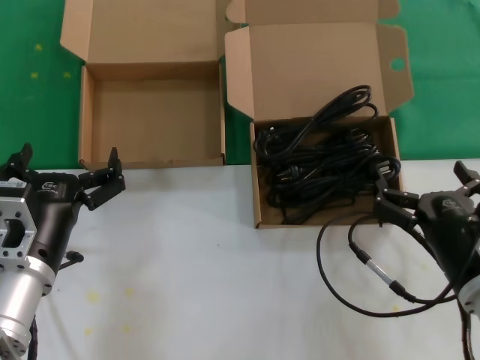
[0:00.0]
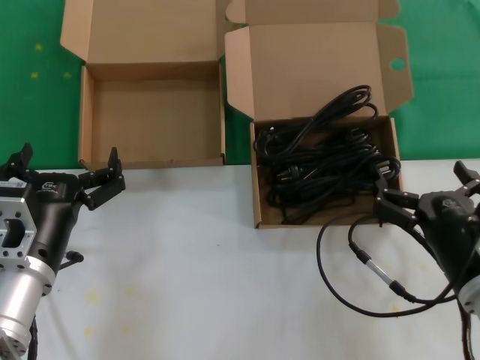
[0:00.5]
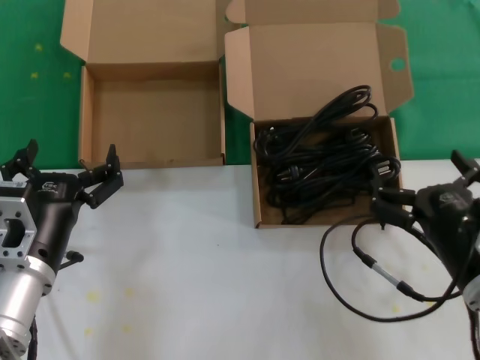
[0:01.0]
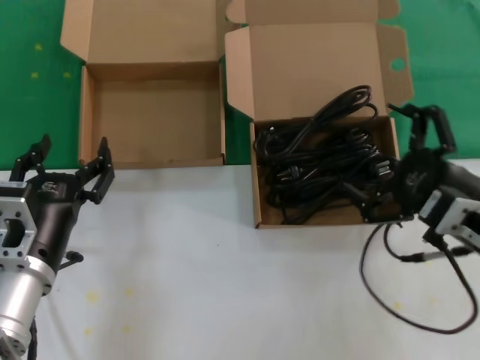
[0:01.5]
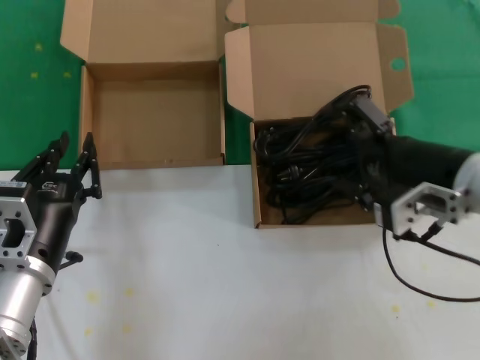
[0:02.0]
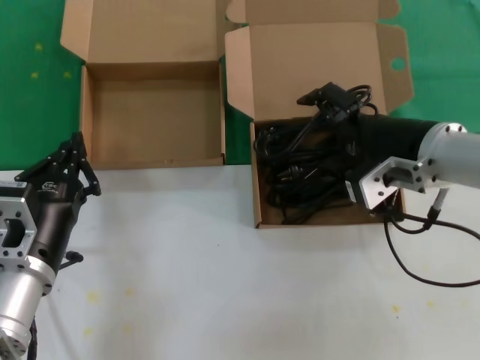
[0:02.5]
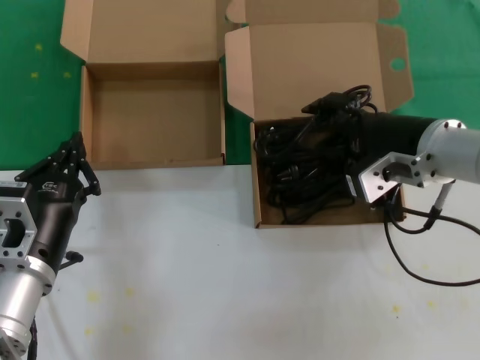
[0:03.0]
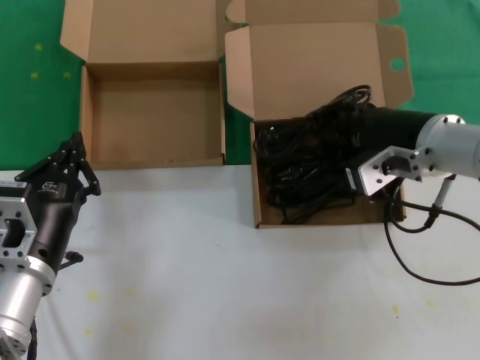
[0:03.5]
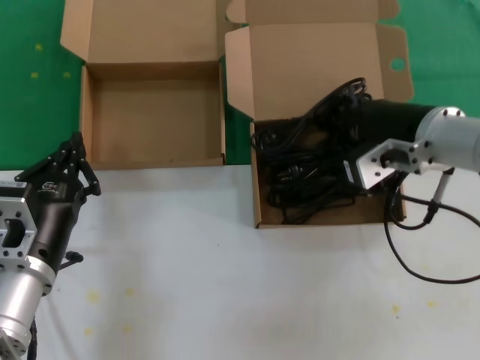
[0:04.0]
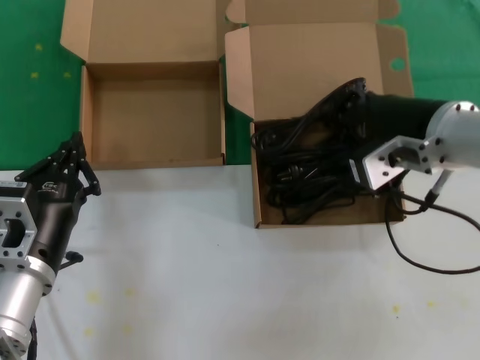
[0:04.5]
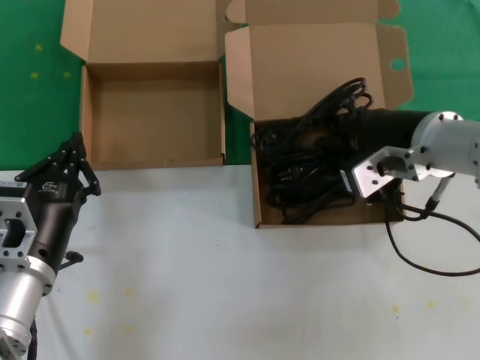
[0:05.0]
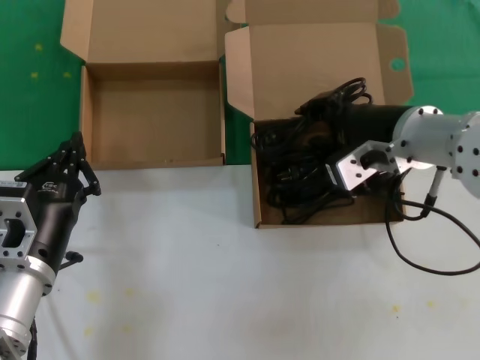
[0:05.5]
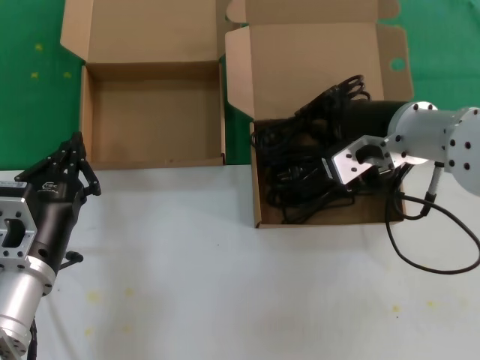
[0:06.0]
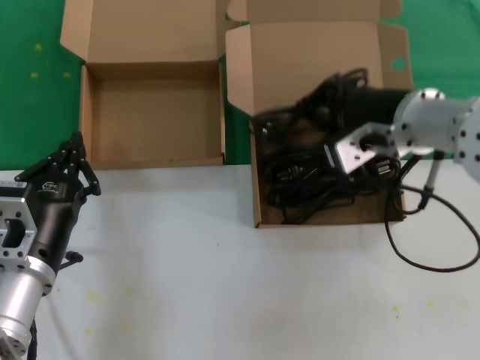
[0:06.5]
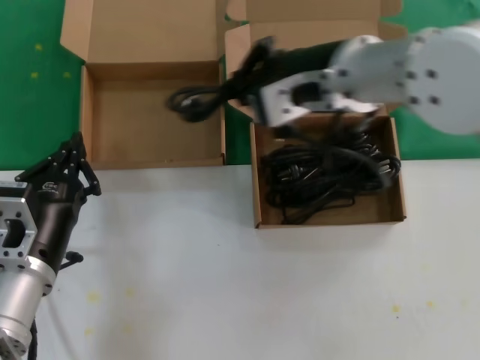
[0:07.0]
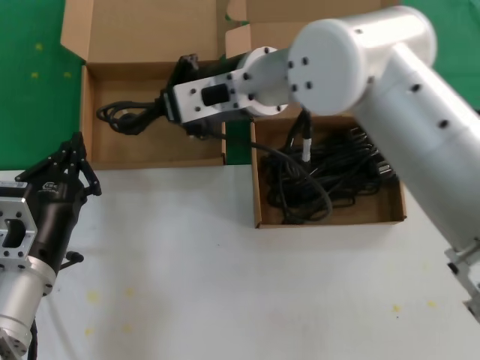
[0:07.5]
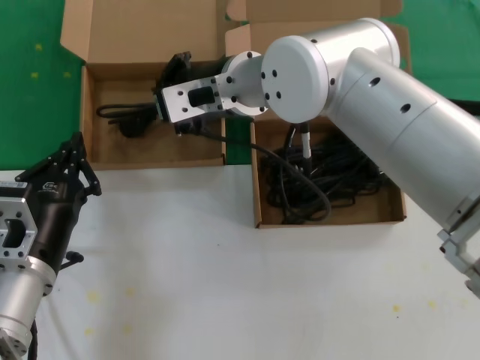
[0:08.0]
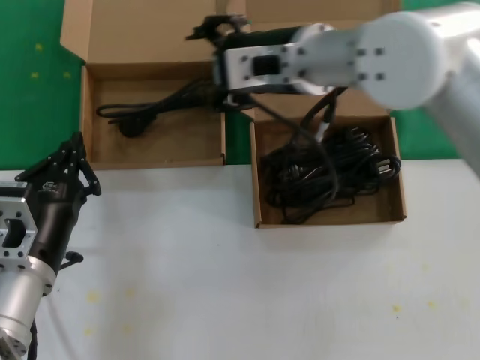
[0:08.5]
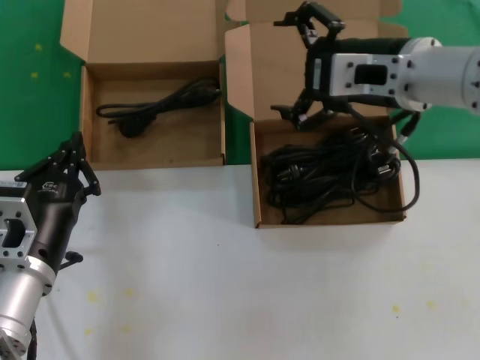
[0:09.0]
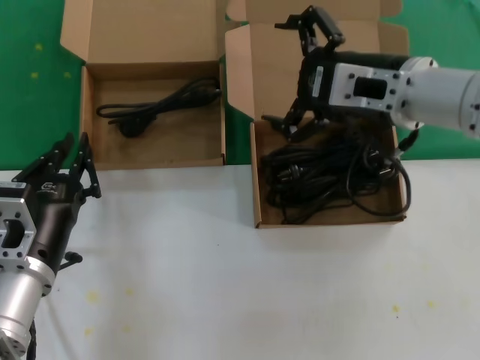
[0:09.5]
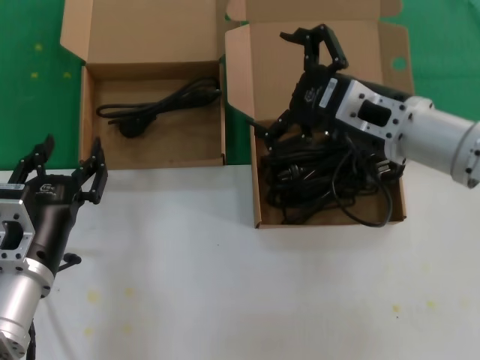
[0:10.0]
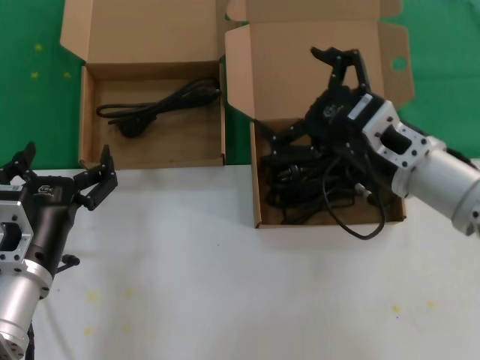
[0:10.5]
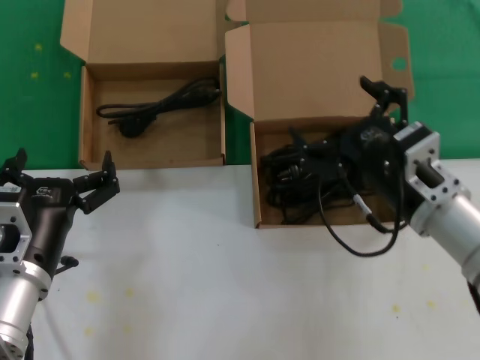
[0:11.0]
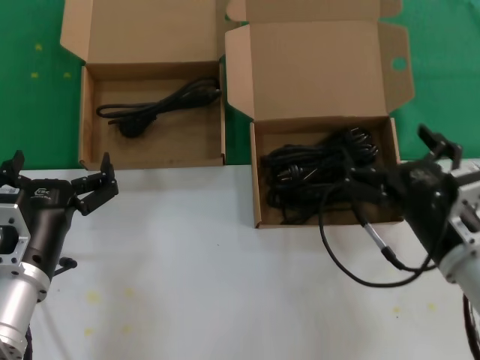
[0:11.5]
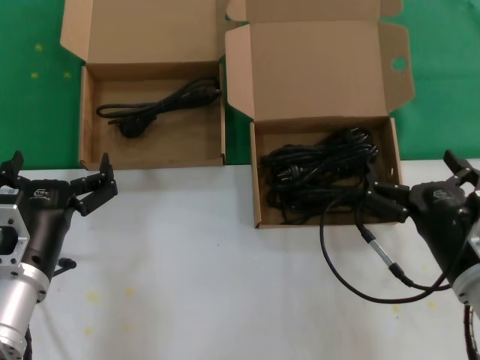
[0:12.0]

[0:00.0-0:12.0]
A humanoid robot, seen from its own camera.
Task of the whole recording: take the parts from the box containing them and put them into an empty box.
Step, 0:00.0 to 0:06.0: Grasp the data cable.
Step, 0:06.5 to 0:08.0: Place the data cable in the another box.
0:00.0 to 0:02.0: The right hand shifts about 15 cm upward and forward.
0:02.0 to 0:04.0: The right hand shifts roughly 5 cm forward.
0:04.0 to 0:06.0: The hands move only a little.
0:06.0 to 0:08.0: The right hand goes some 20 cm to the left.
0:08.0 to 0:10.0: The right hand is displaced to the right and backward by approximately 20 cm.
0:10.0 to 0:12.0: The right hand travels downward and backward by approximately 20 cm.

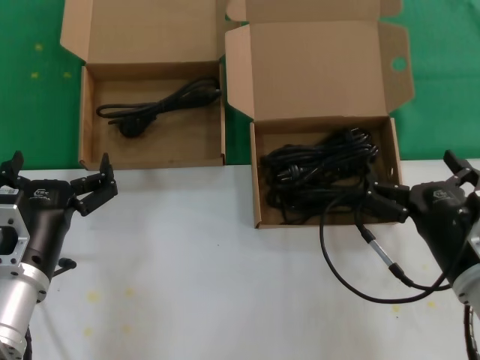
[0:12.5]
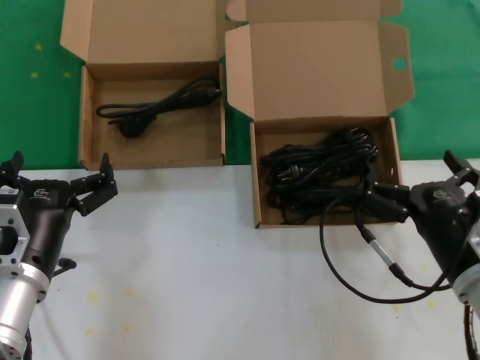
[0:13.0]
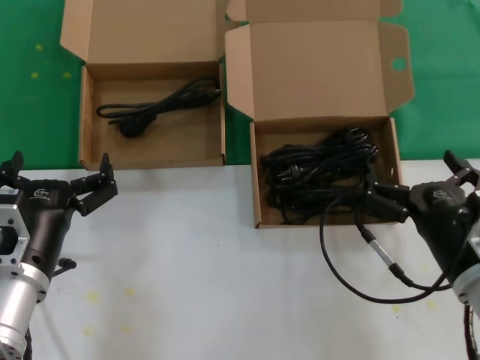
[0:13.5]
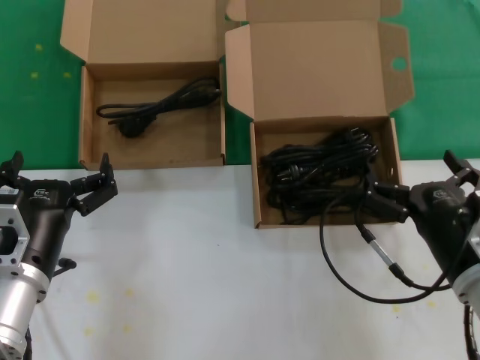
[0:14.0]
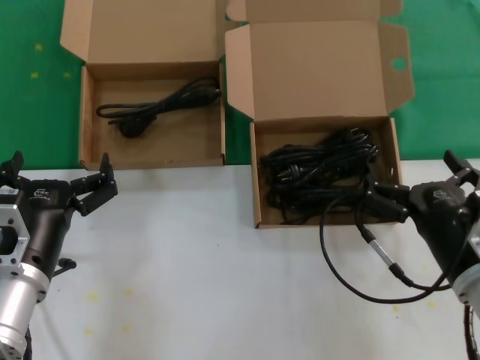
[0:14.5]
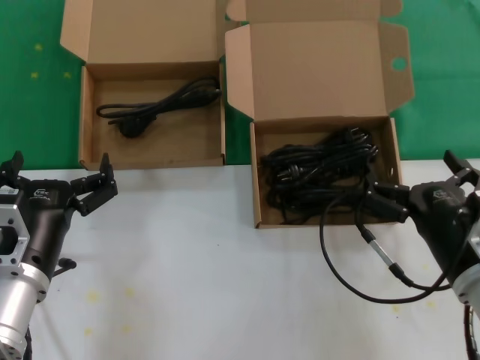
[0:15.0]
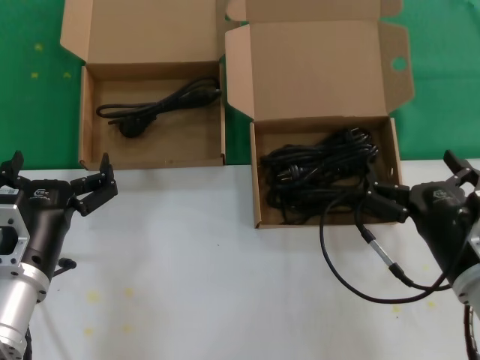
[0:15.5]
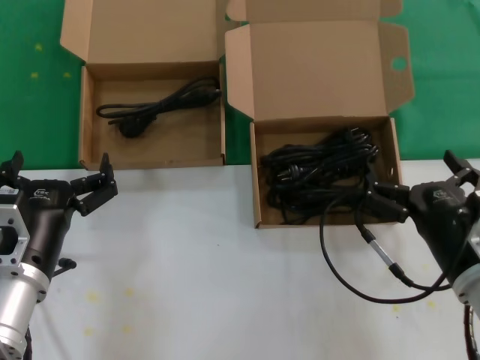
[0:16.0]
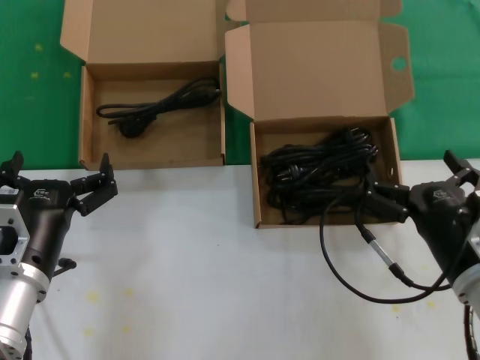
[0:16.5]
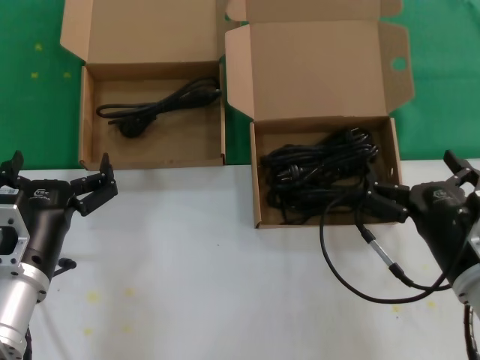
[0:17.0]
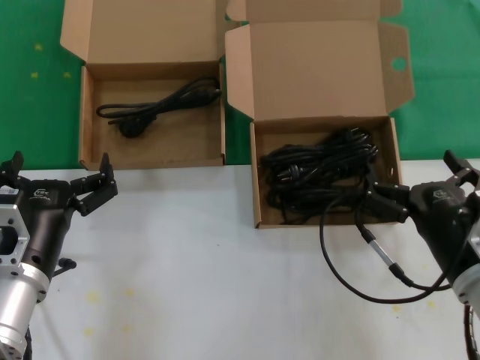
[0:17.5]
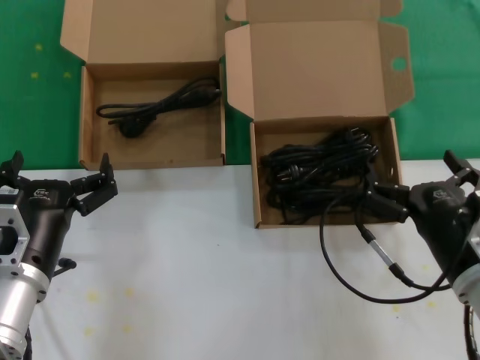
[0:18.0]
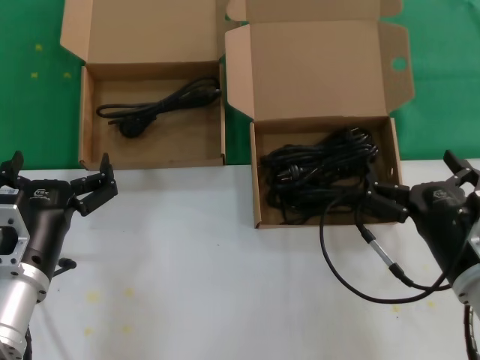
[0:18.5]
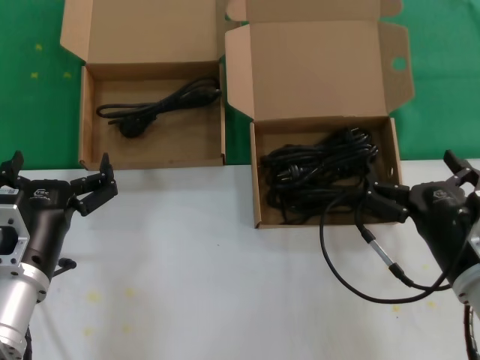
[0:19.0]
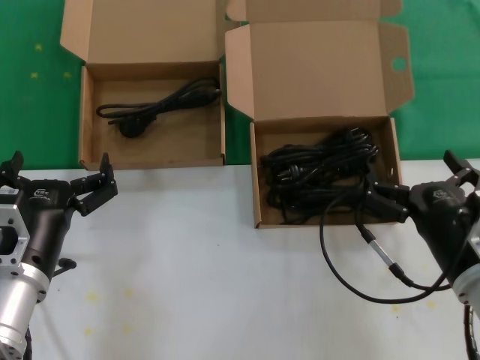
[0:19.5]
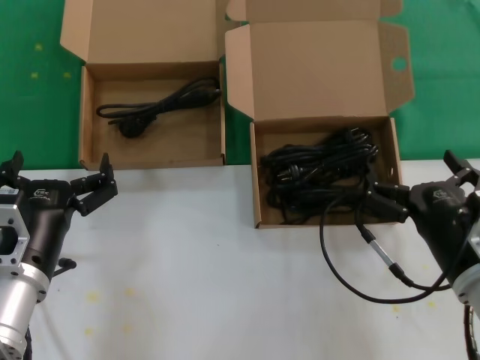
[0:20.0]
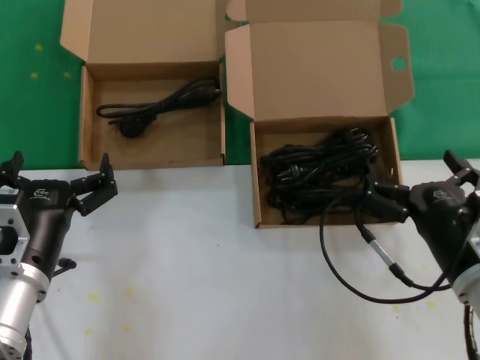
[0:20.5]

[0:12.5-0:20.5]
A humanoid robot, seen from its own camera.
Task of the whole recording: take the parts from the box containing them and put them into an empty box.
0:12.5 to 0:20.5: Both hands stay put.

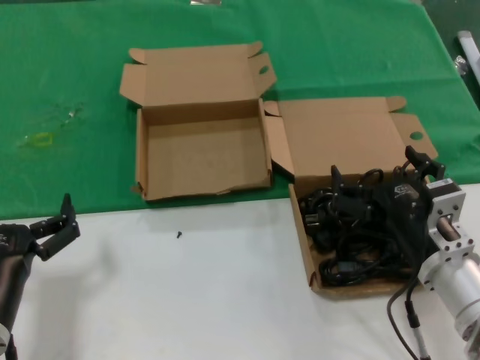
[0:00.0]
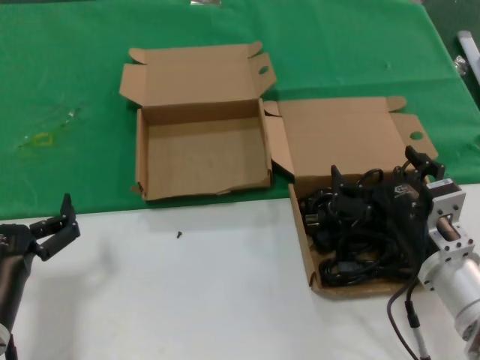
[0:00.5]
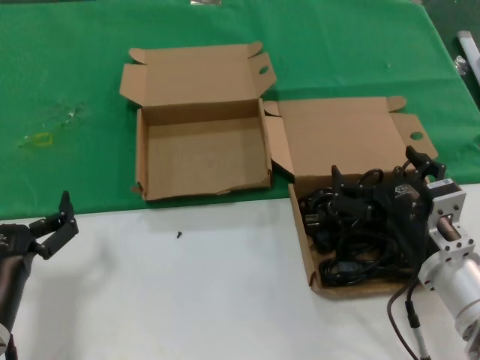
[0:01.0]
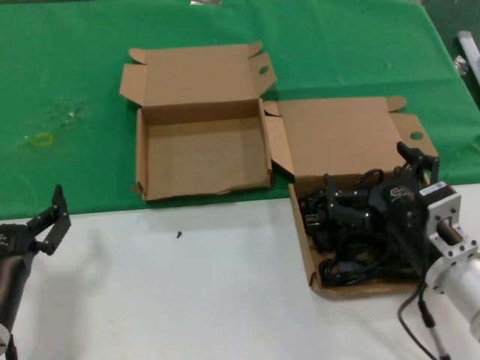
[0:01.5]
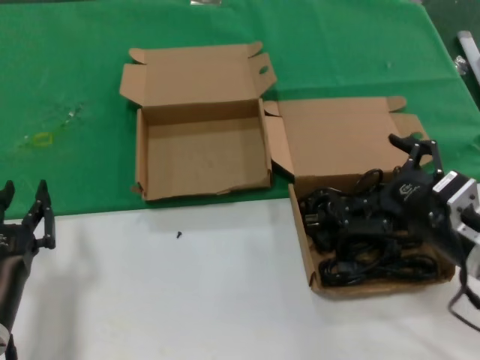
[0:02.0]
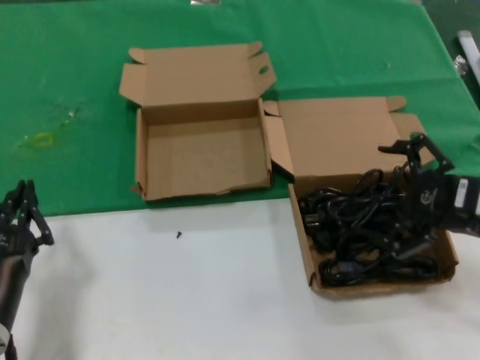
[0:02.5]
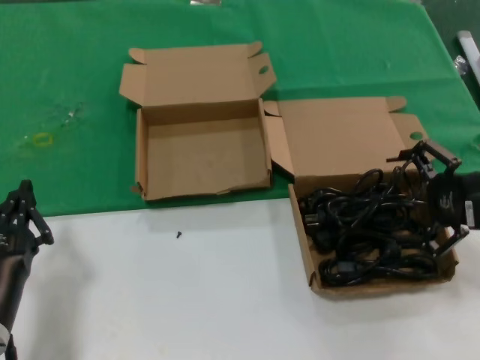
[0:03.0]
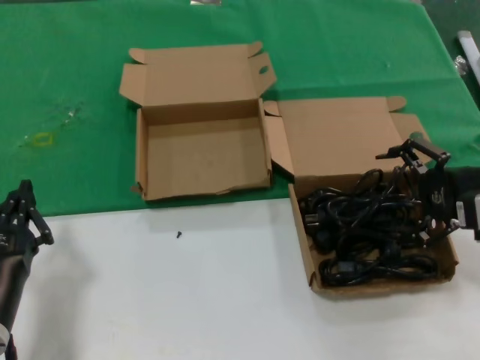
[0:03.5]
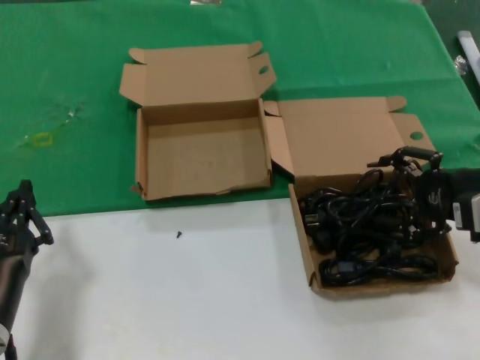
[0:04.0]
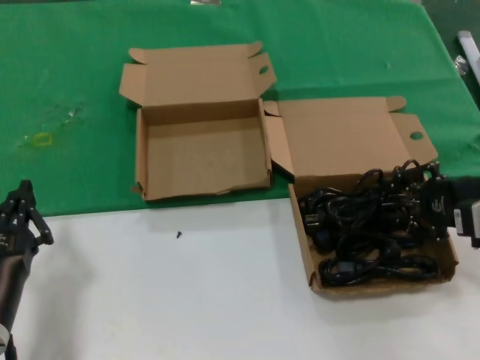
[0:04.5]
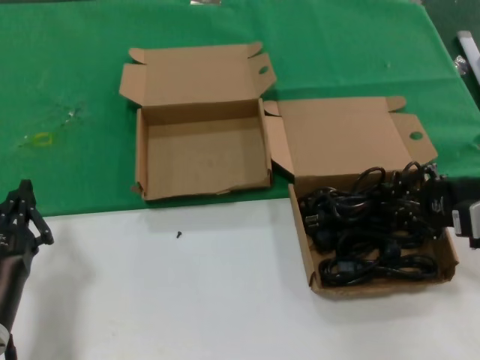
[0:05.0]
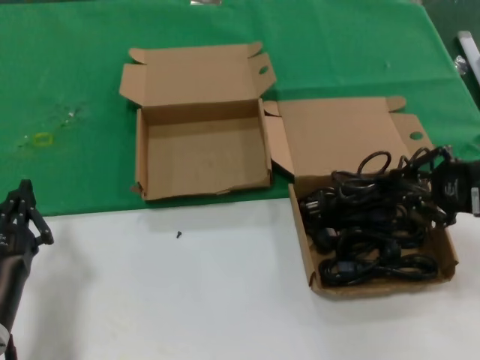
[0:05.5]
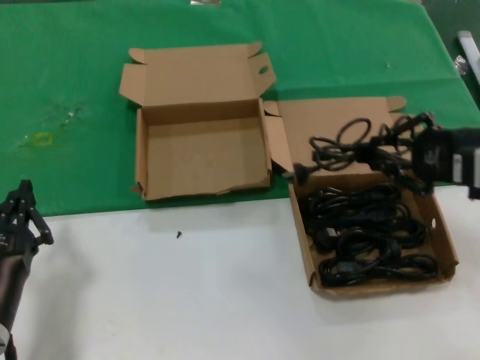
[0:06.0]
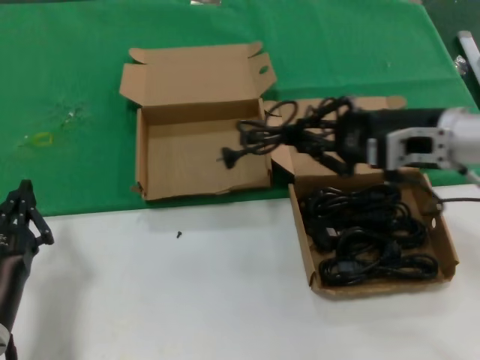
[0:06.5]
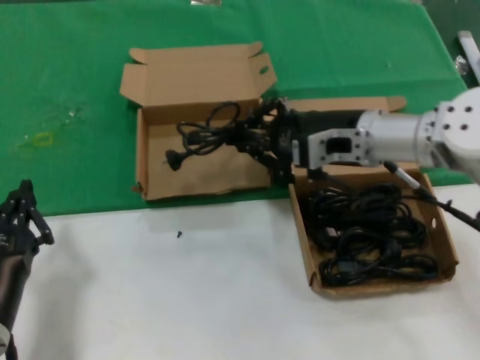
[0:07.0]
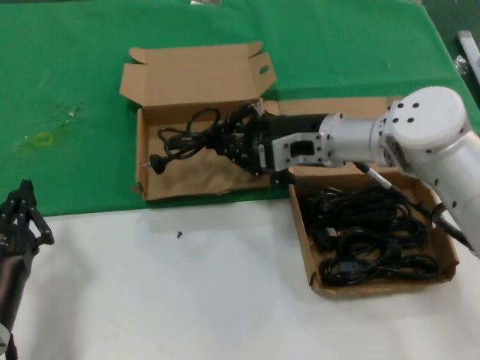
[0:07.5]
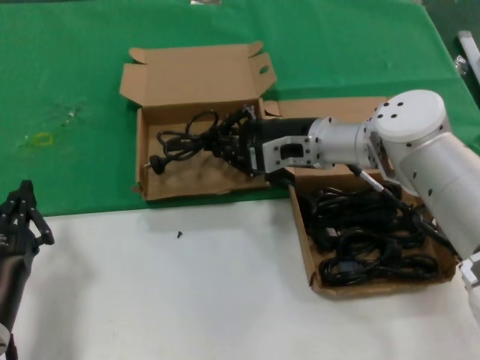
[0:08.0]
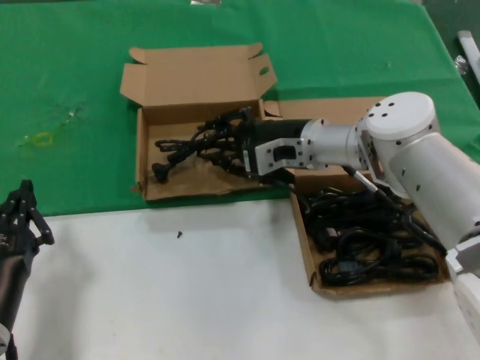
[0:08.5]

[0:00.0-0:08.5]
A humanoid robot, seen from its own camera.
Task of the whole recording: take the parts from the box containing them and put them into an empty box.
Step, 0:00.0 to 0:05.0: Grasp the data cable.
0:00.0 to 0:02.0: The right hand moves to the right, some 5 cm.
0:02.0 to 0:04.0: The right hand is displaced to the right, forward and upward by approximately 15 cm.
0:04.0 to 0:06.5: The right hand heads to the left and upward, covering roughly 10 cm.
0:06.5 to 0:08.5: The right hand goes approximately 20 cm to the left, forward and downward.
